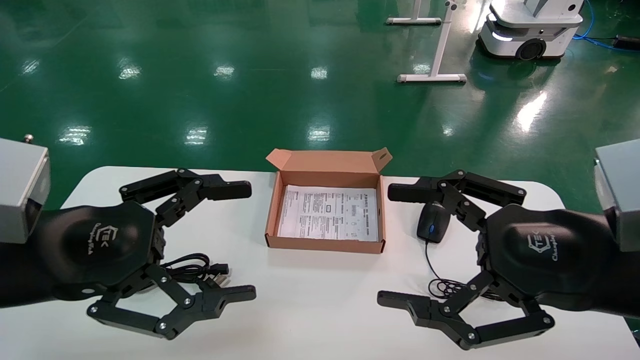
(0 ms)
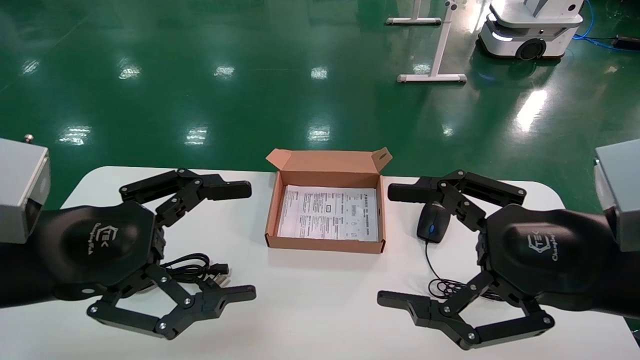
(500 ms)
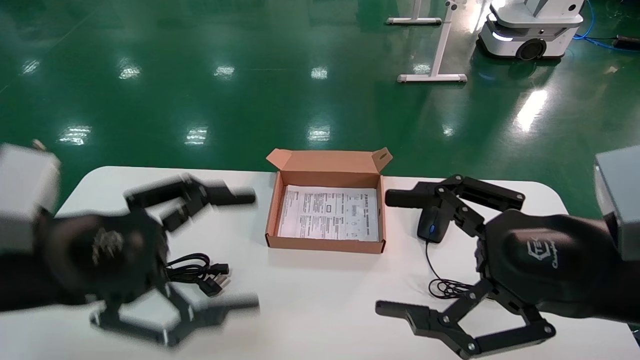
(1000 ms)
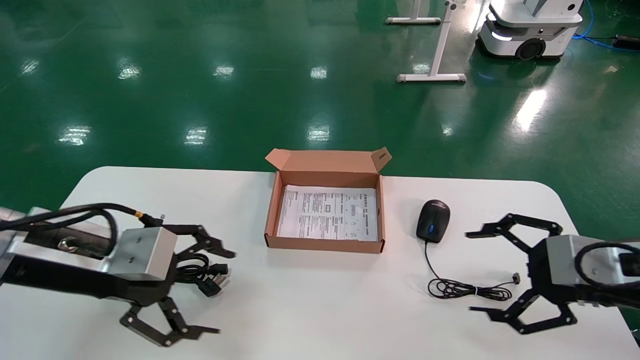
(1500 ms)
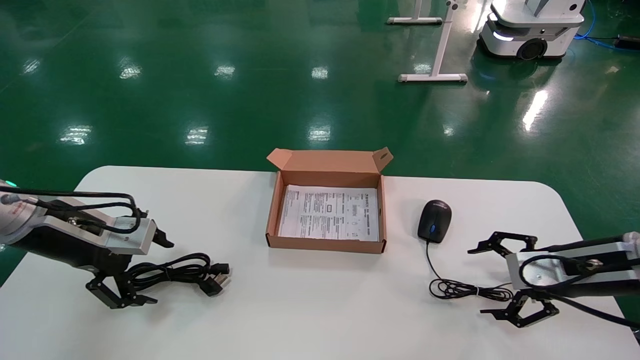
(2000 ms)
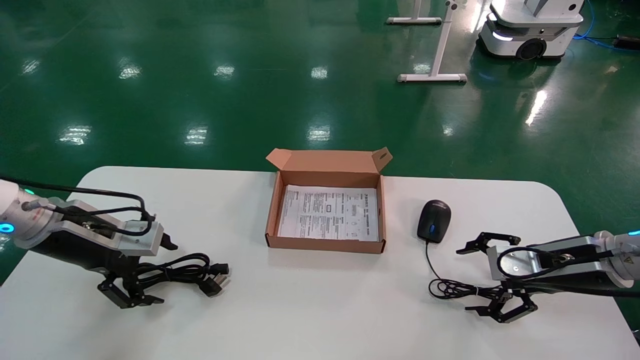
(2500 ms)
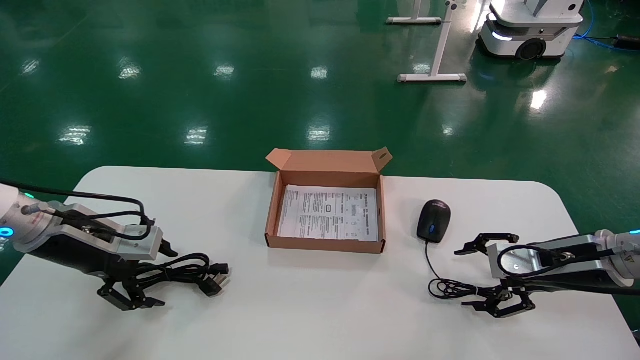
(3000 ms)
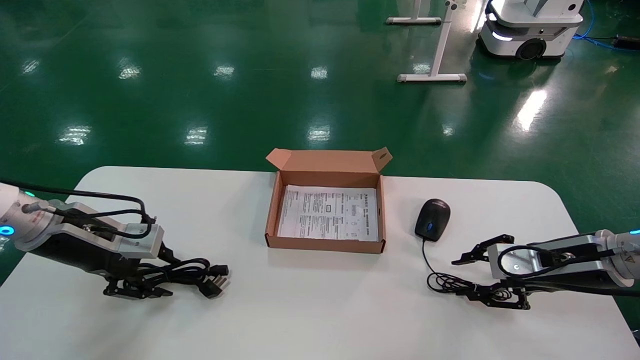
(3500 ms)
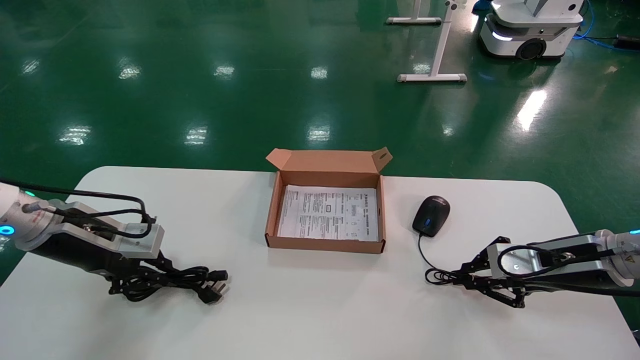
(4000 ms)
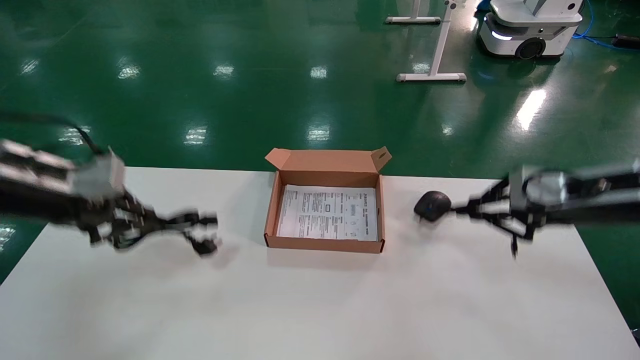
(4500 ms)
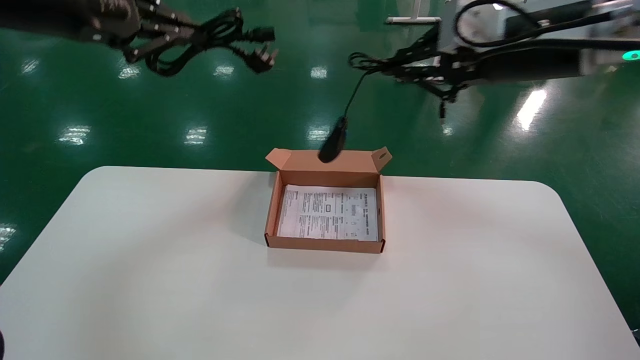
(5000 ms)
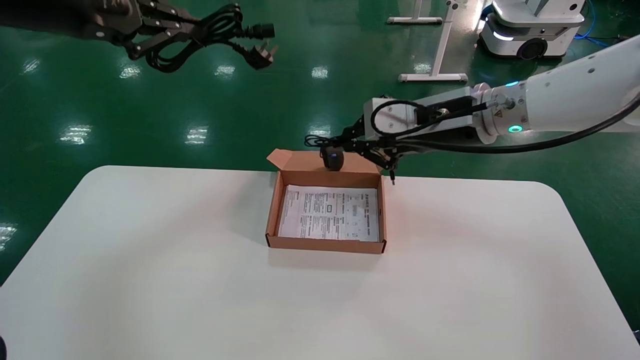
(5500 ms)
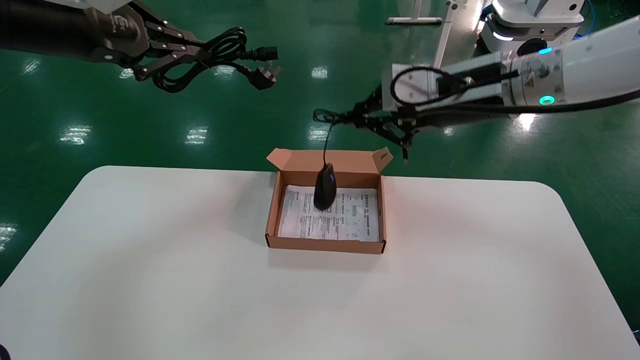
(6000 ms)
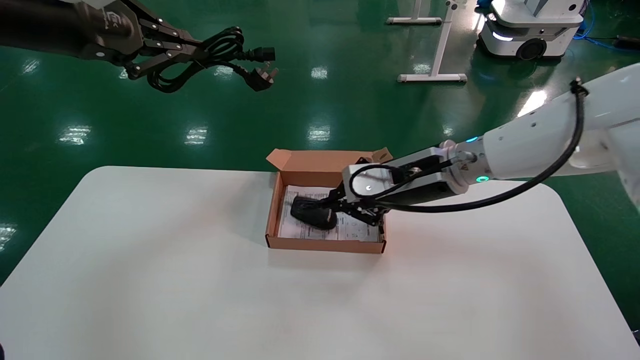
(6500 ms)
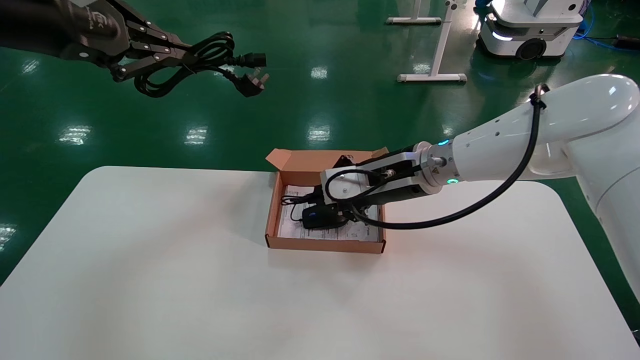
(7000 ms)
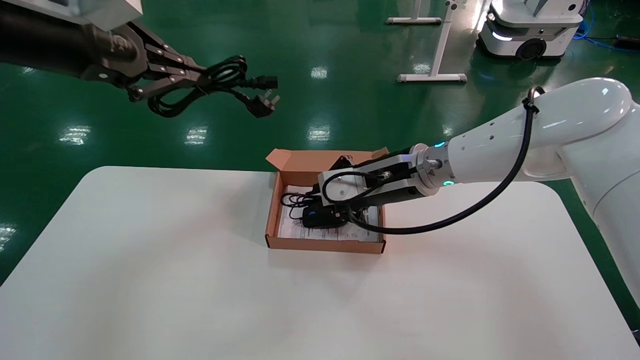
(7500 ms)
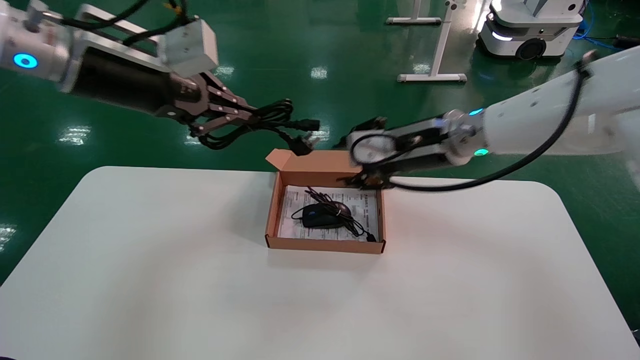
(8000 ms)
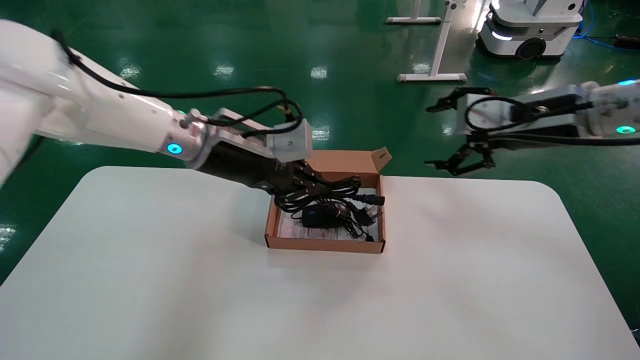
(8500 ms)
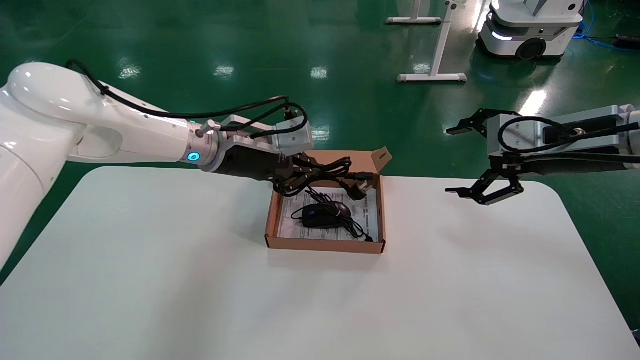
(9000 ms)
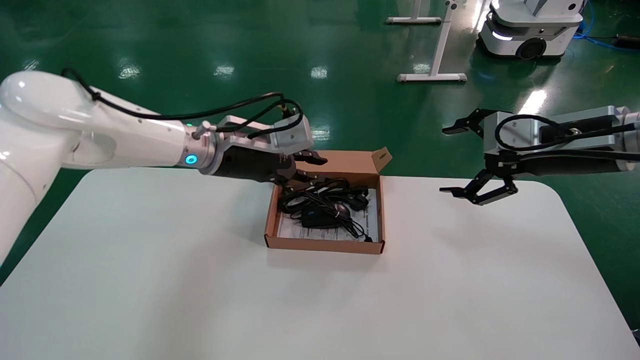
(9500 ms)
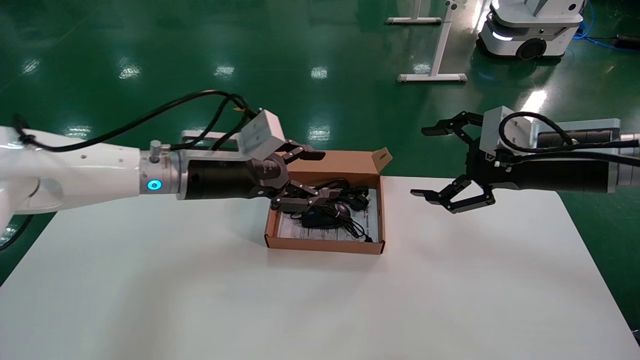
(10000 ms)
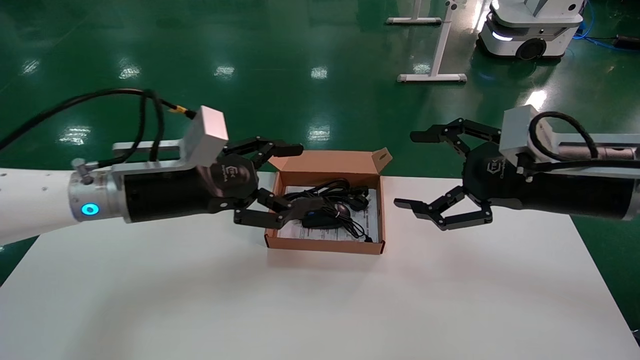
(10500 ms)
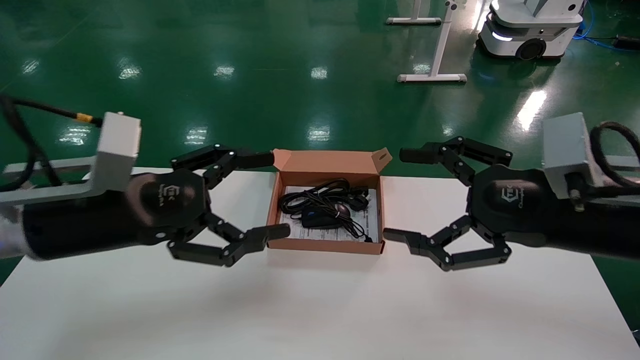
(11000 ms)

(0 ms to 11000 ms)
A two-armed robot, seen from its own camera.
Step, 1500 ms - 4000 ms: Grab and lift both the mouse and power cord from the accessory packaging area at the same time.
Step, 4500 ms - 9500 ms: Place the mouse and power cord into the box.
0 ms - 2000 ms: The right gripper heads forward, to the right and downward, covering about 20 cm; the left gripper is displaced forward and to the left by about 15 cm.
2000 ms - 3500 ms: The left gripper closes, while the right gripper closes up.
3500 ms - 5500 ms: The right gripper goes about 25 cm upward and to the left, and closes its fingers. The left gripper travels upward by roughly 25 cm, and closes up.
5500 ms - 7500 ms: The right gripper heads downward and to the left, covering some 10 cm.
7500 ms - 9000 ms: The left gripper goes about 25 cm downward, to the right and forward, while the right gripper moves to the right, about 20 cm, and opens.
9000 ms - 11000 ms: The left gripper goes roughly 20 cm backward and to the left, and opens its fingers. Meanwhile the right gripper moves backward, roughly 15 cm.

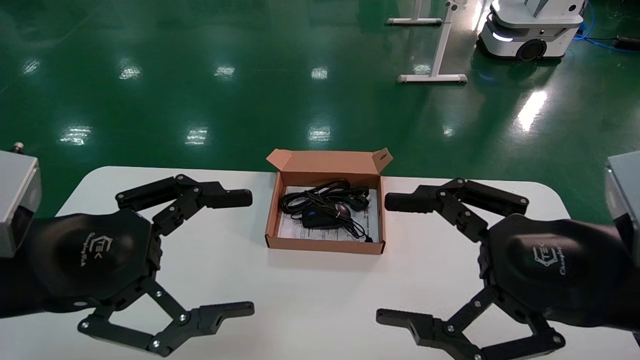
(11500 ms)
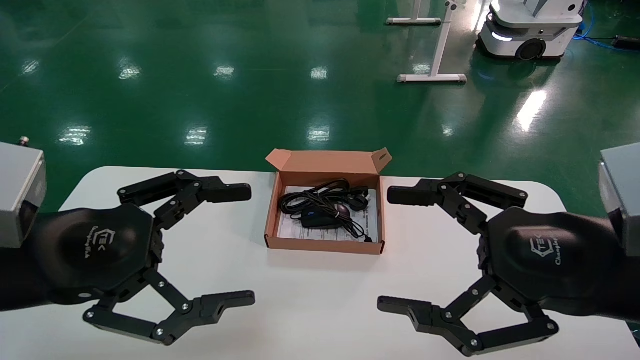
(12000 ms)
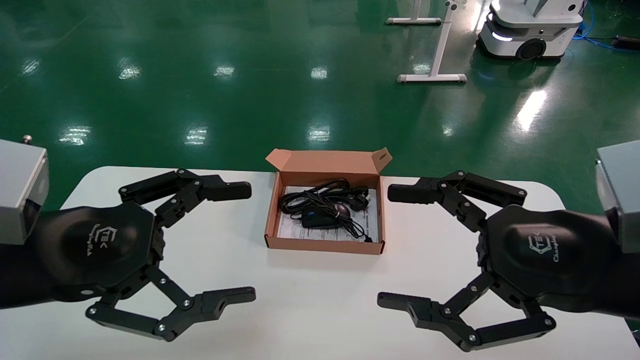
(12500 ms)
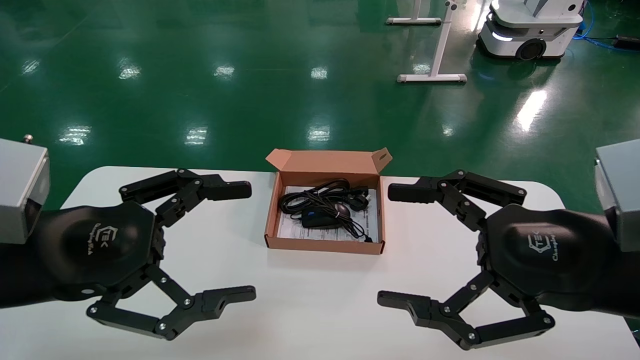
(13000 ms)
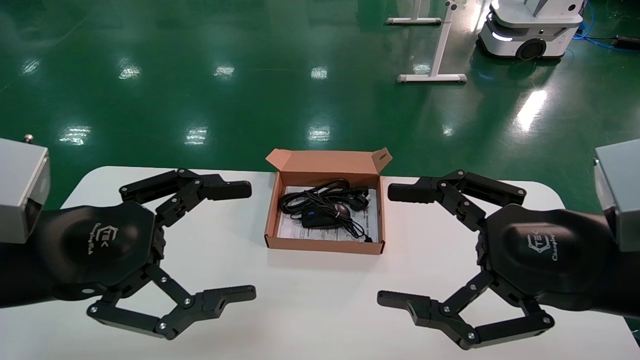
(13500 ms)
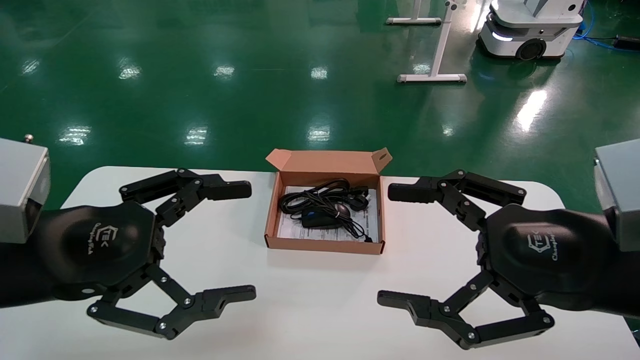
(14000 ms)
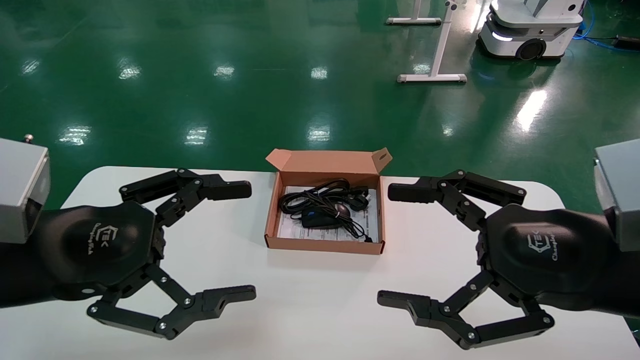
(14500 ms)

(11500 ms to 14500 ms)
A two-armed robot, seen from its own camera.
11500 ms - 14500 ms: The two grippers keep their place.
